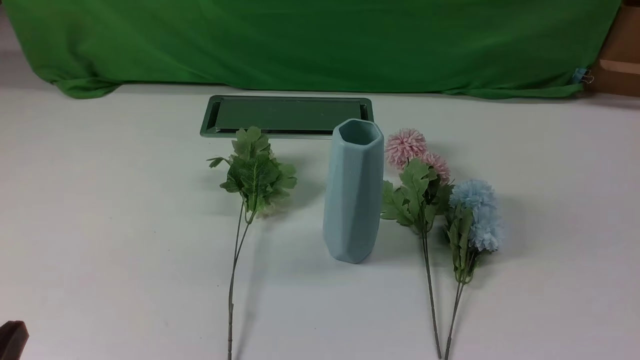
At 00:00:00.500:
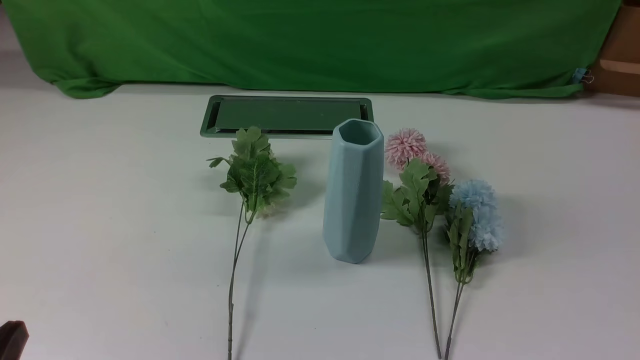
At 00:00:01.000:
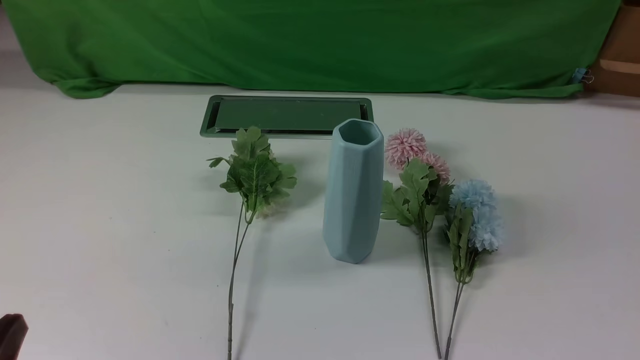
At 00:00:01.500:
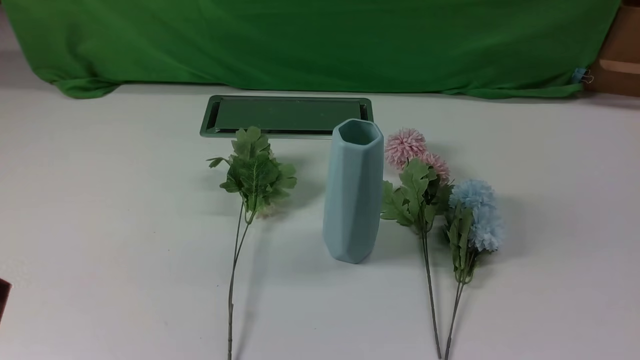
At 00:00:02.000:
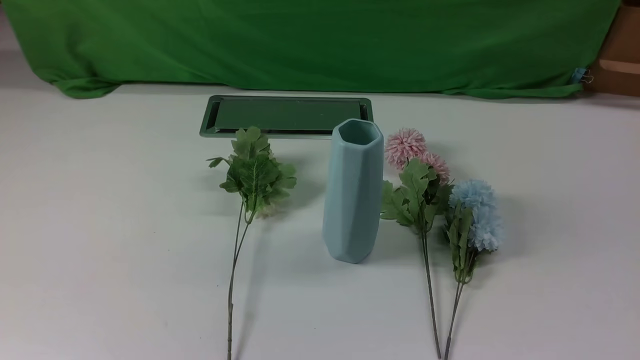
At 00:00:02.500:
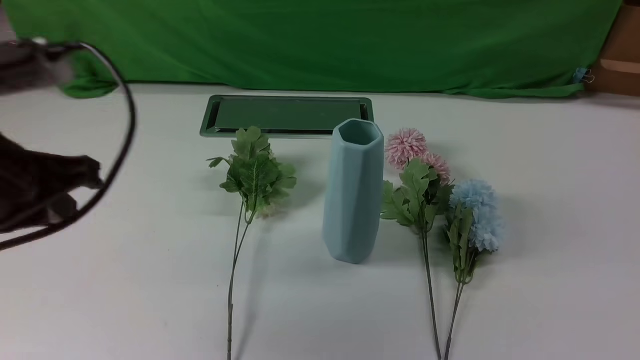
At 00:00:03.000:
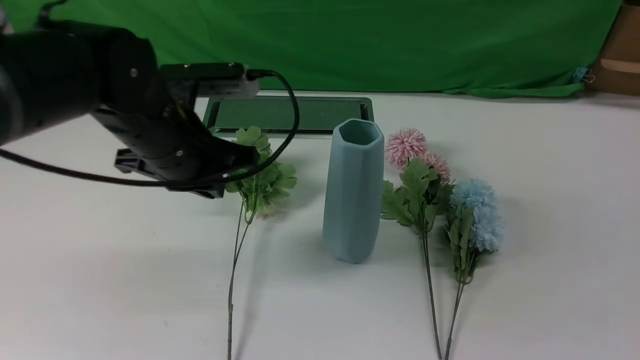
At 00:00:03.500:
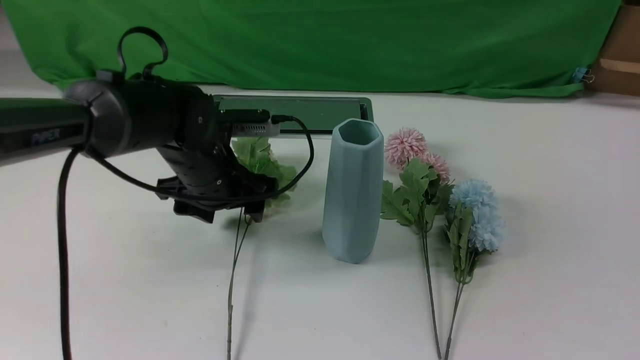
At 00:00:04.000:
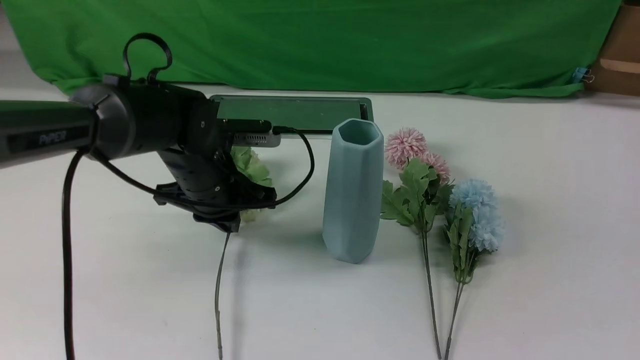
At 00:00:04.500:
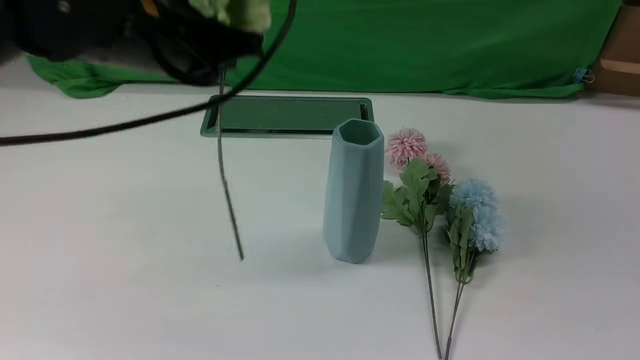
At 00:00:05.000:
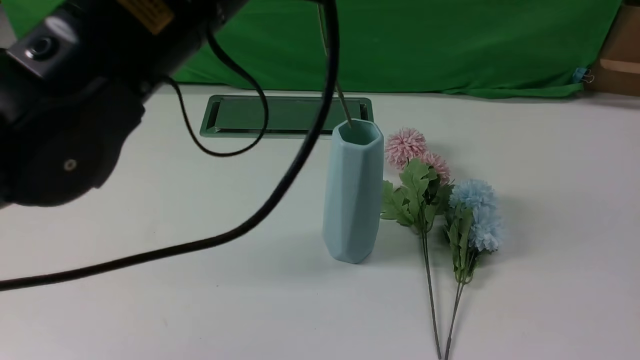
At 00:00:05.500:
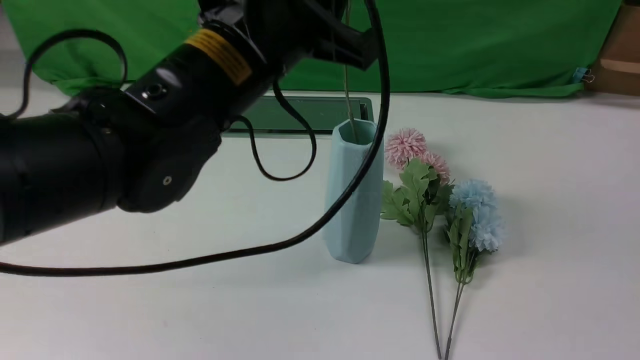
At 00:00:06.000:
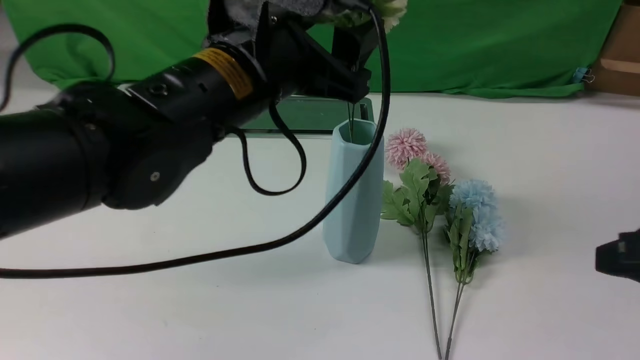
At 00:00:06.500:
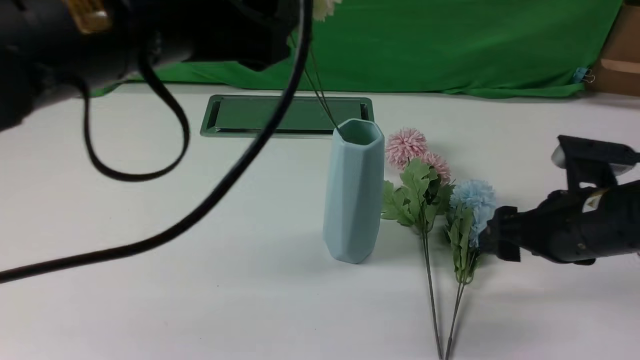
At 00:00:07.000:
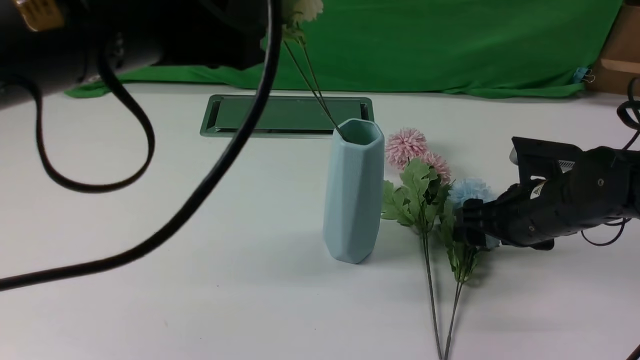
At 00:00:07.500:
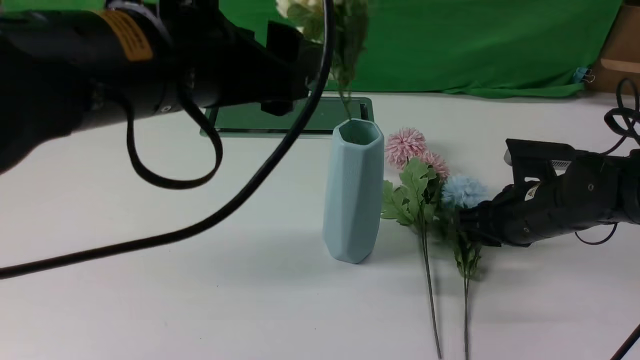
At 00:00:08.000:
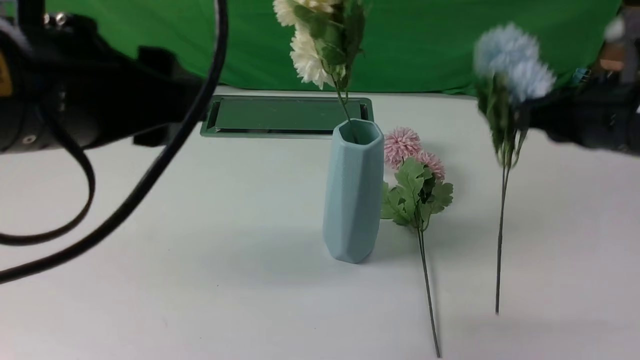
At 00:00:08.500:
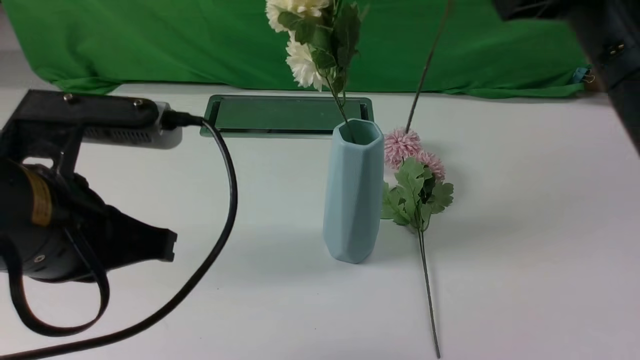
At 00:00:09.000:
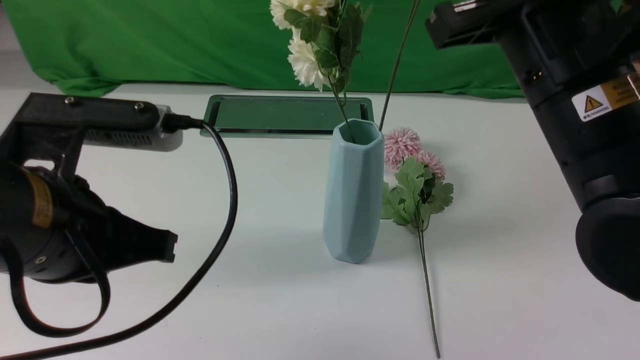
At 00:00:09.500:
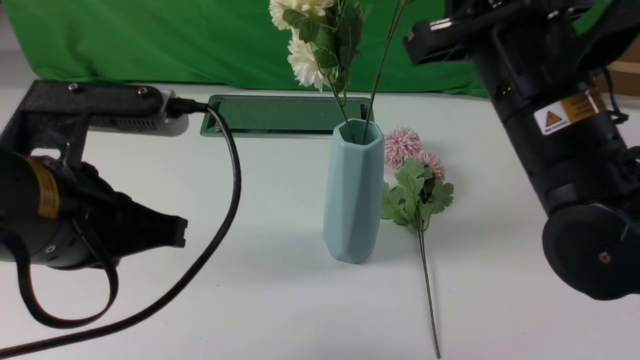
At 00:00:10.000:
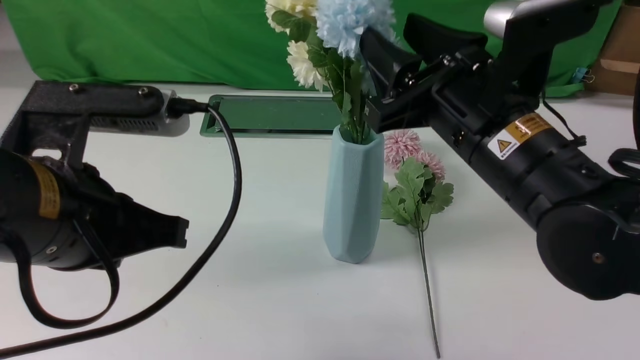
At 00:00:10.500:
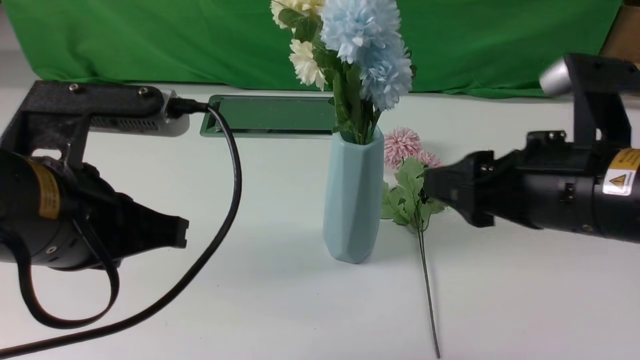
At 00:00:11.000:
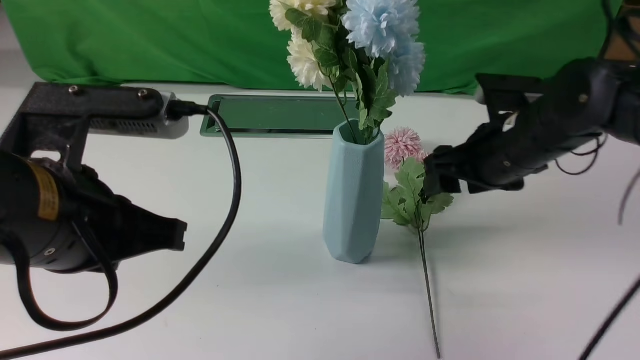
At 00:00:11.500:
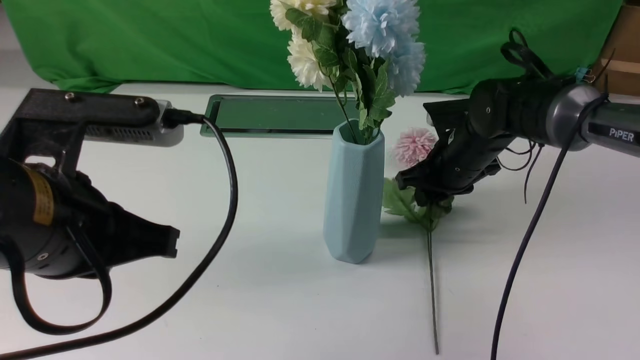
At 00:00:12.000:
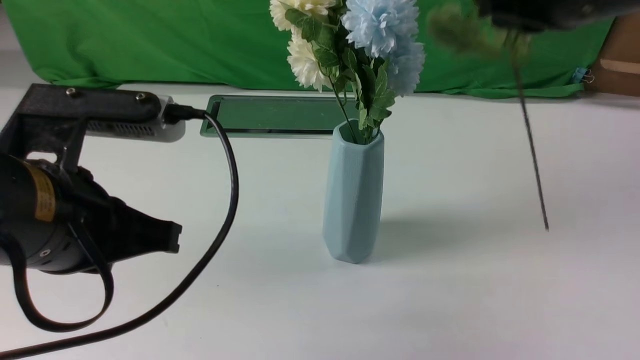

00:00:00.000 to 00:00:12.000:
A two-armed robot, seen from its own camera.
Task of the whole recording: insert the flowers into the vase on the white table.
Step, 00:00:00.000 to 00:00:10.000: Put the flowers in the vase with both hands.
Step, 00:00:10.500 to 00:00:11.500: use the right arm to grab a bunch of fresh flowers.
00:00:02.000 to 00:00:04.000: The right gripper moves upward and forward, approximately 15 cm, while the left gripper is displaced forward and to the right by roughly 35 cm, and opens and closes again.
00:00:04.000 to 00:00:06.000: The left gripper shifts some 20 cm upward and backward, and opens up.
00:00:06.000 to 00:00:08.000: The right gripper heads forward, covering roughly 15 cm, and closes its fingers. The left gripper travels backward and to the left by roughly 10 cm.
00:00:08.000 to 00:00:10.000: The right gripper heads to the left, covering some 10 cm, travels upward and back again, roughly 10 cm each way, and opens. The left gripper heads downward, covering about 5 cm, and closes its fingers.
00:00:10.000 to 00:00:12.000: The right gripper moves forward and backward over some 20 cm, changing direction 2 times, and closes its fingers.

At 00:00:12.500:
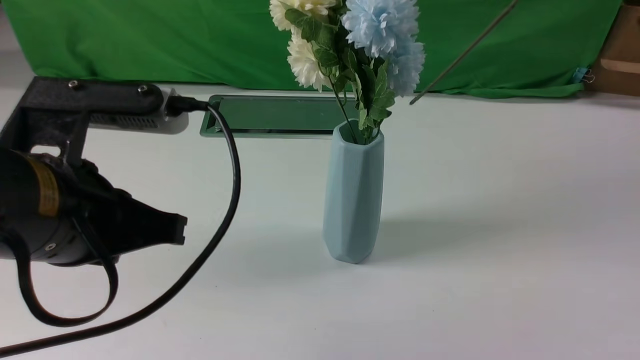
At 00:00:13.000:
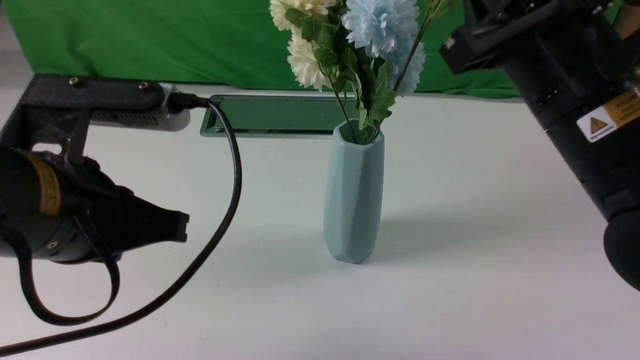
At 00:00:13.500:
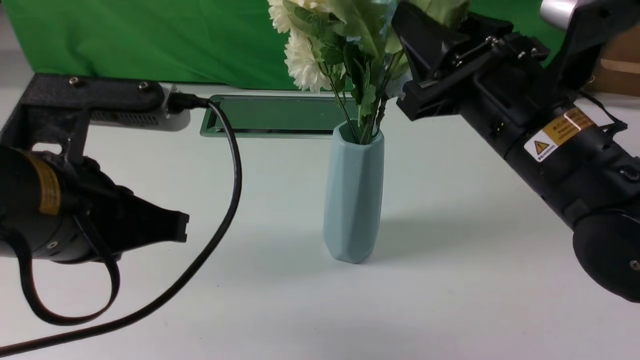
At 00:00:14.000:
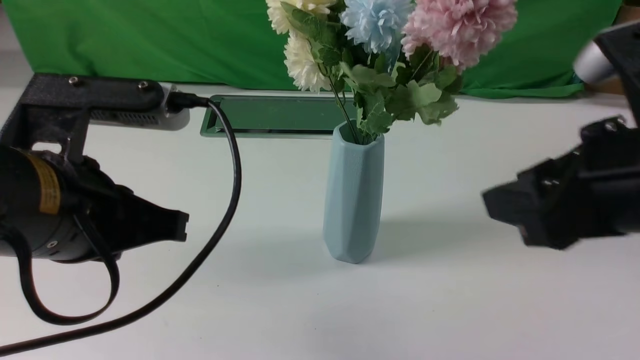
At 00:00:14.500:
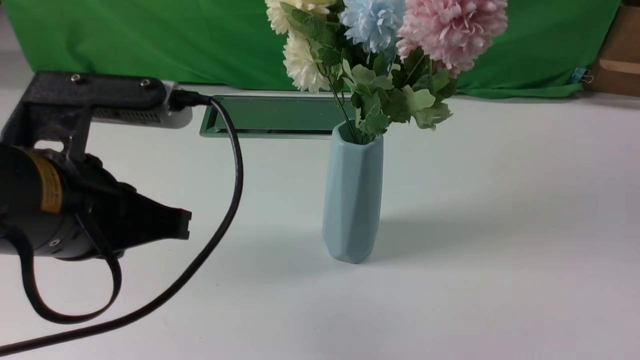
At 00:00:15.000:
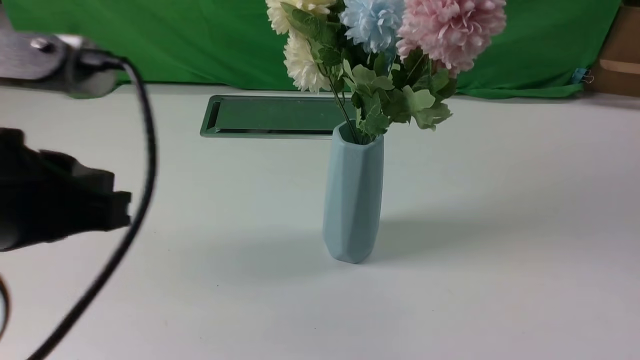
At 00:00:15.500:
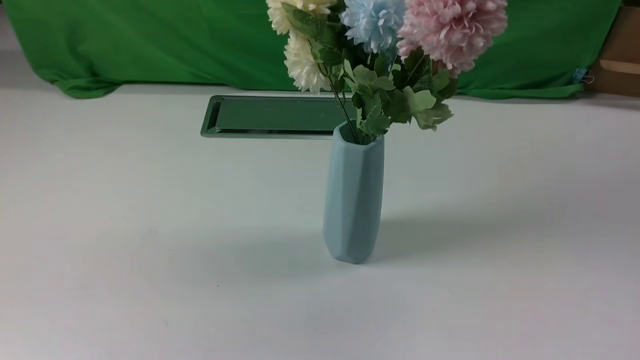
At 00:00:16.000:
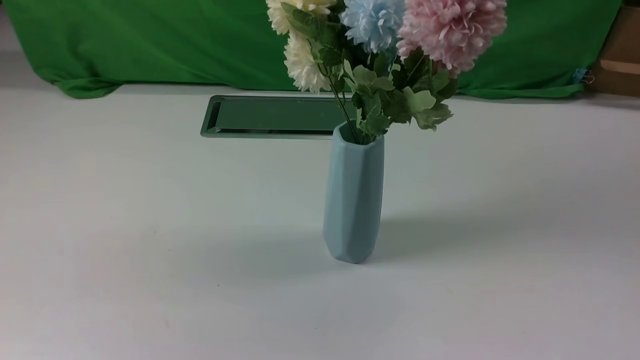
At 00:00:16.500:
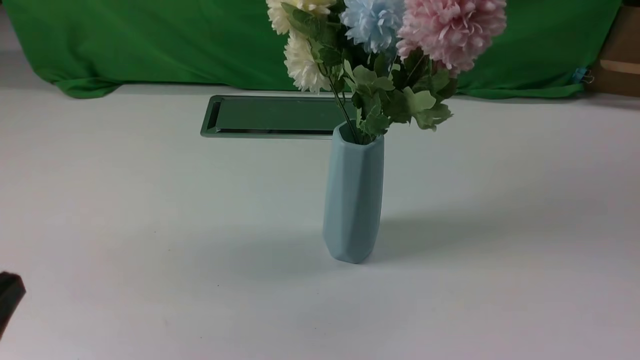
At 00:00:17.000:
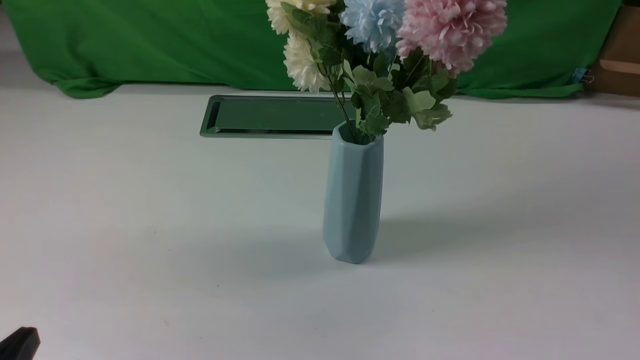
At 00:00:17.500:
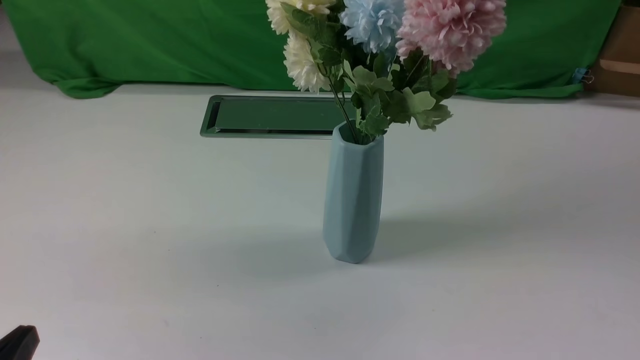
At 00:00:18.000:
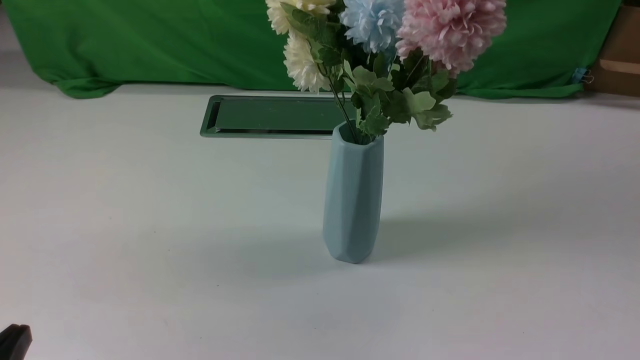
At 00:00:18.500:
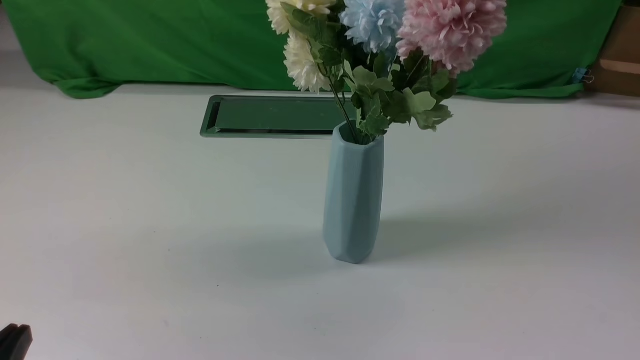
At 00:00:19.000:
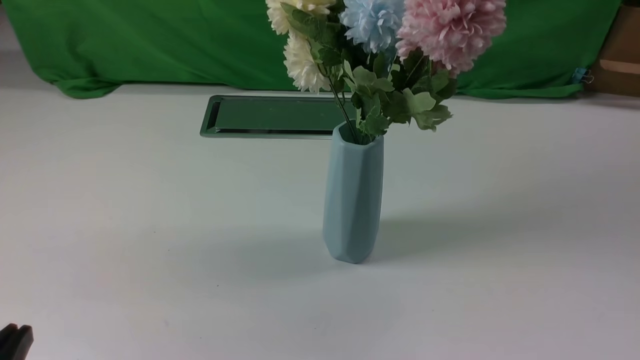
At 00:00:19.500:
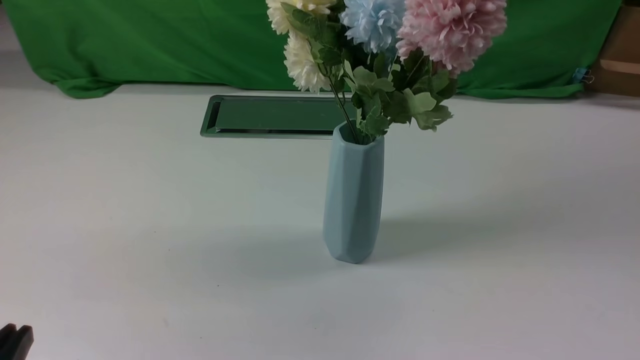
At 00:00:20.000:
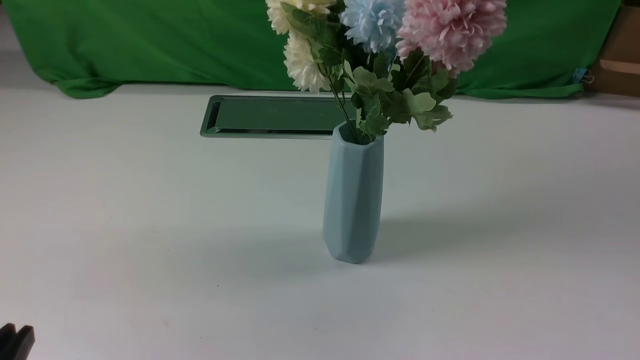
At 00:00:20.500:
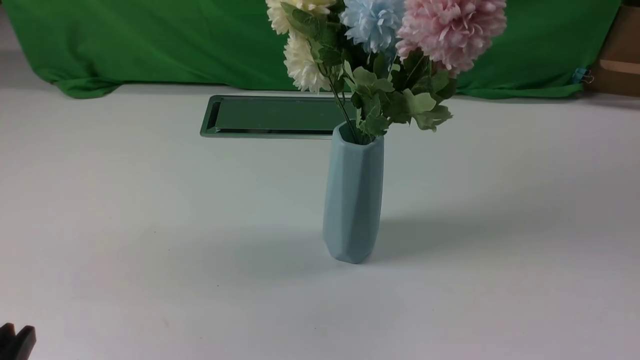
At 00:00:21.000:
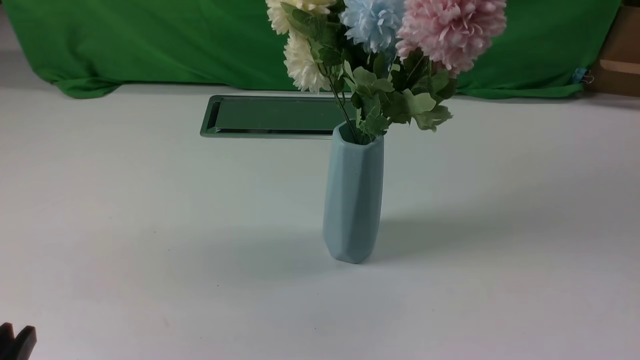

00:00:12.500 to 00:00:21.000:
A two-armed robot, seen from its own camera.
Task of the whole recording: insert the flowers into the vase on the white table.
00:00:12.500 to 00:00:14.500: The right gripper goes some 20 cm backward and to the right, and opens, then closes again.
00:00:14.500 to 00:00:16.500: The left gripper is displaced backward and to the left by roughly 15 cm. The right gripper changes place by approximately 5 cm.
00:00:16.500 to 00:00:19.000: The left gripper heads downward, covering roughly 10 cm.
